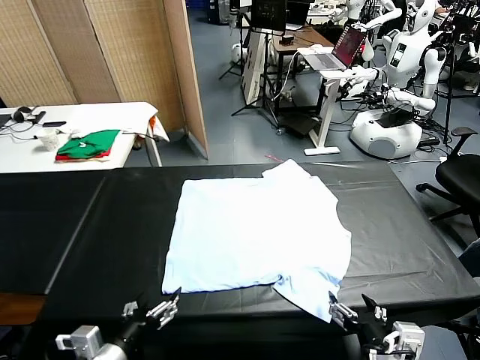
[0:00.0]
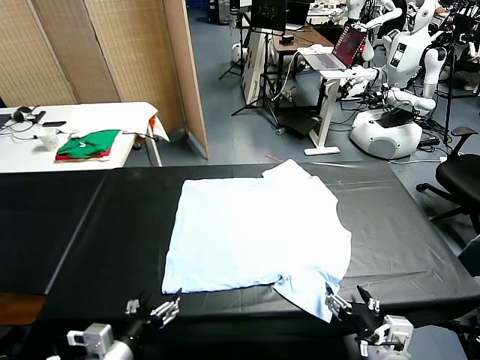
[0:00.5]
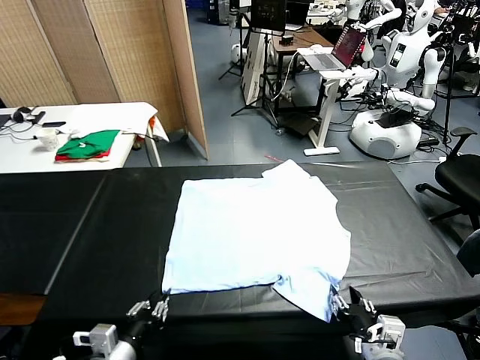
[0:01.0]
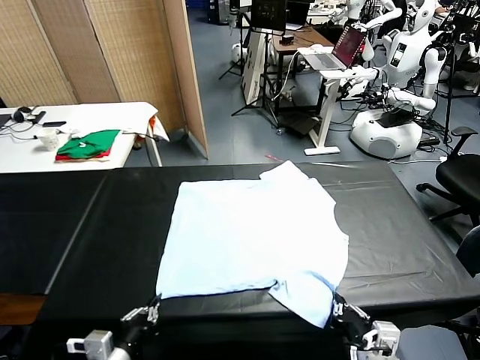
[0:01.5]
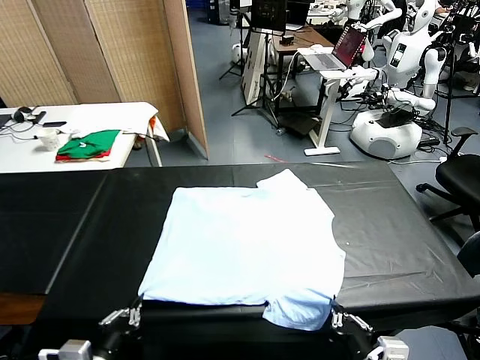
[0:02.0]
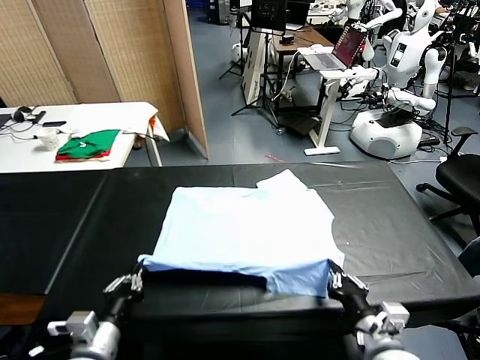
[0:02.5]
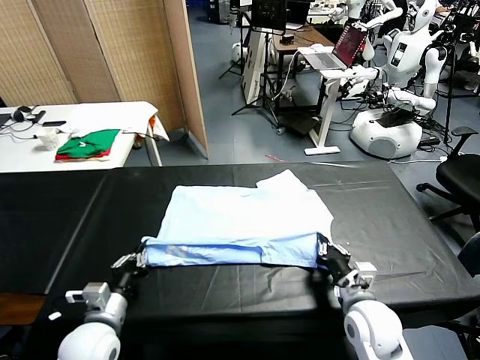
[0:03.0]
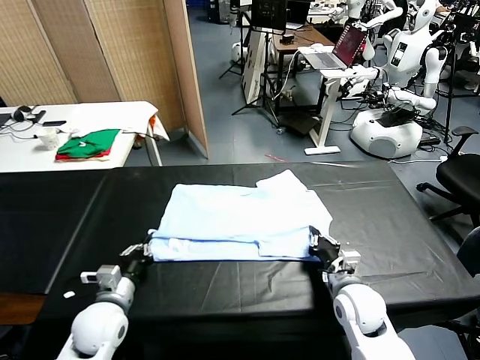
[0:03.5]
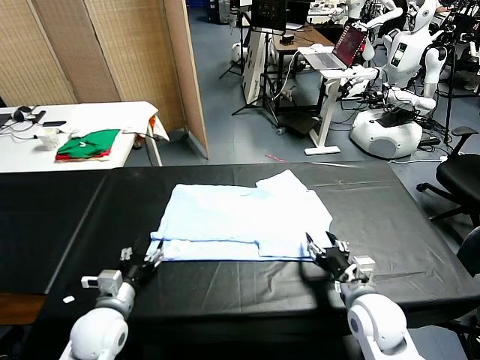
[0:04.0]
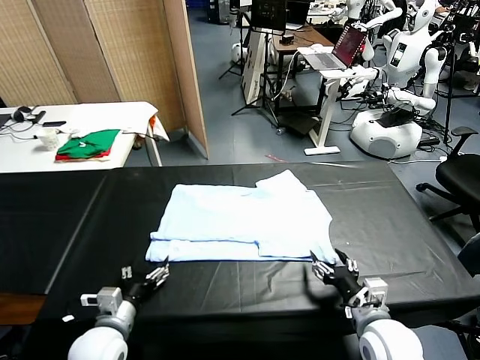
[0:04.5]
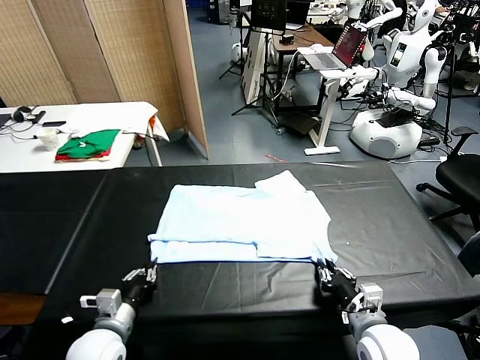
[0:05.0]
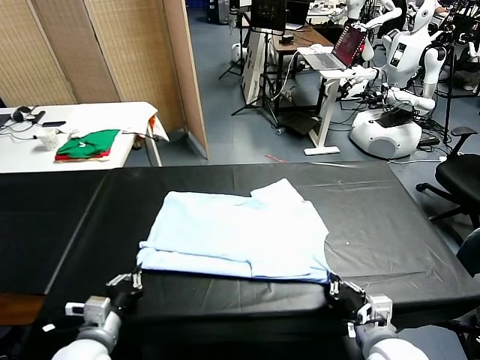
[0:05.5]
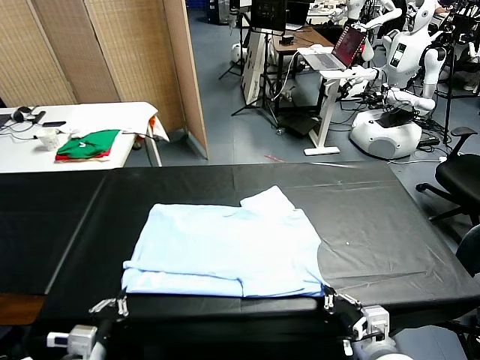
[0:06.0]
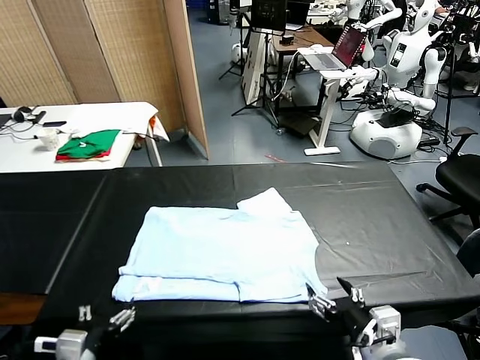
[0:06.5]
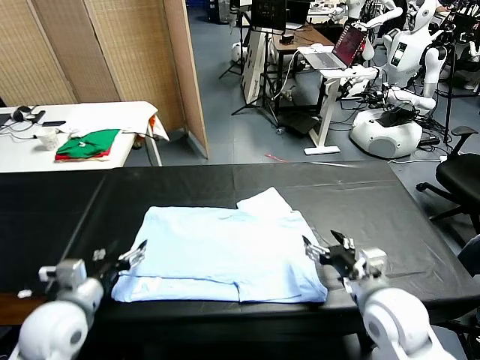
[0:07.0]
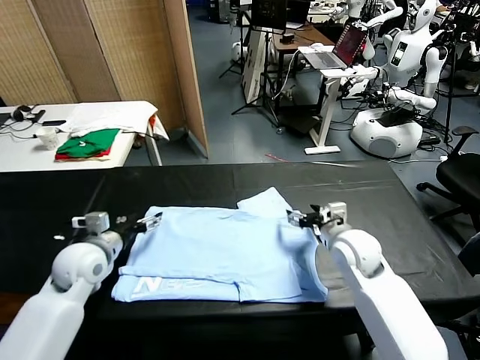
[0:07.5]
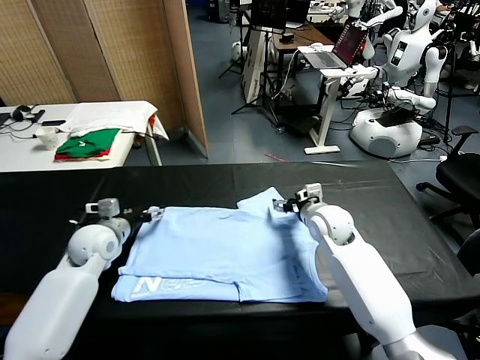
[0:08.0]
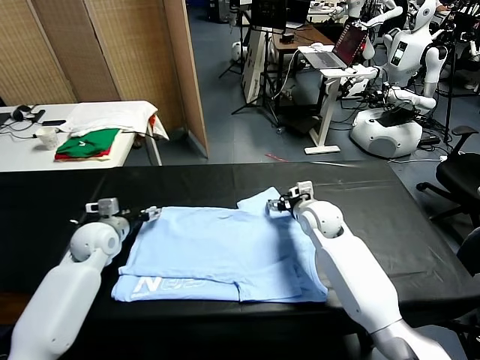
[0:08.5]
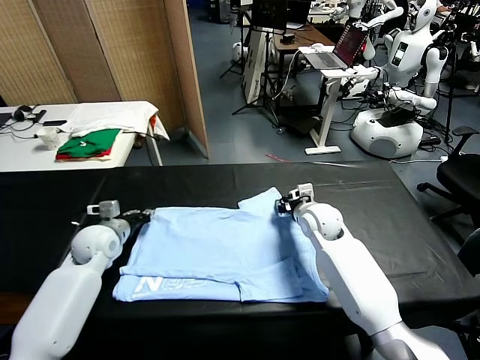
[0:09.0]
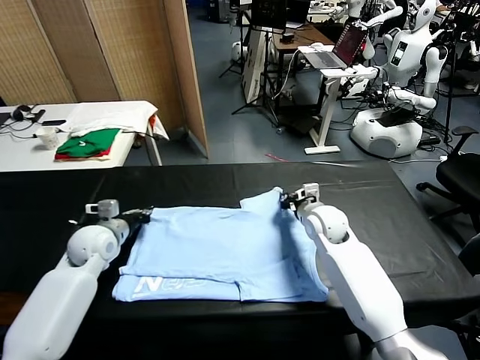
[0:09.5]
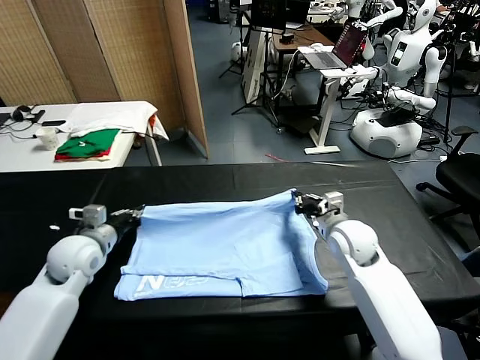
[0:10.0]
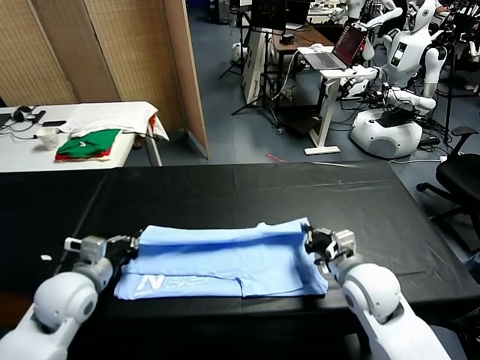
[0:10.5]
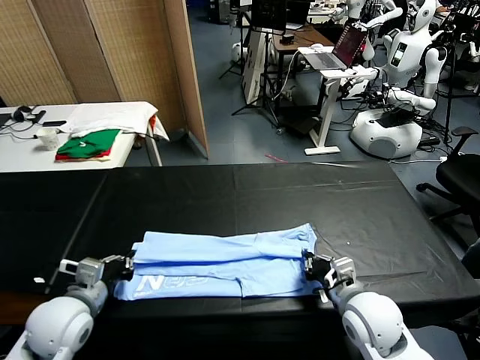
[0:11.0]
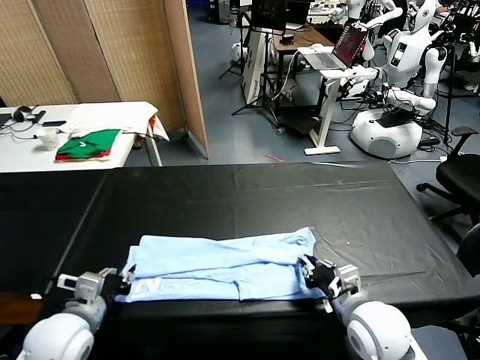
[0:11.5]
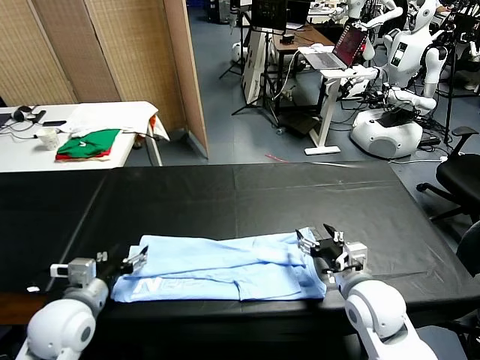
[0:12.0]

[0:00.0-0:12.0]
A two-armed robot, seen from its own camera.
Task of the whole recording: fold and organize the clothes.
Step, 0:00.0 to 0:01.0: use both grippers simultaneously to clamp the lower edge of the clothing fabric.
Step, 0:01.5 to 0:04.0: use both grippers to drag the lower edge of the fabric forward and fold it over the upper edge.
Step, 0:04.5 to 0:06.0: Drag the clothes downward with both gripper.
Step, 0:06.5 to 0:09.0: use both grippers simultaneously to clamp the upper edge of the clothing fabric.
Step, 0:09.5 to 0:11.5: use both grippers to drag the upper edge of the fabric backward and fold it over the lower edge.
0:02.0 to 0:04.0: The left gripper is displaced forward and downward by some 15 cm, and opens up. The right gripper shifts roughly 10 cm forward, and opens.
0:04.0 to 0:06.0: Both grippers travel together backward, roughly 10 cm. The left gripper closes up. Meanwhile the right gripper closes up.
0:06.0 to 0:08.0: Both grippers move forward, approximately 30 cm. The right gripper opens up; the left gripper opens.
0:08.0 to 0:10.0: The right gripper goes about 10 cm backward and to the right, and closes its fingers. The left gripper closes.
0:10.0 to 0:12.0: Both grippers travel together backward, some 10 cm. The left gripper opens its fingers; the right gripper opens its fingers.

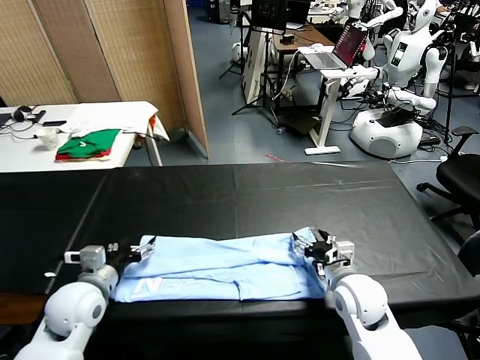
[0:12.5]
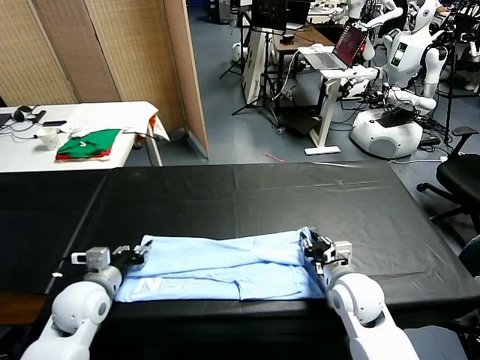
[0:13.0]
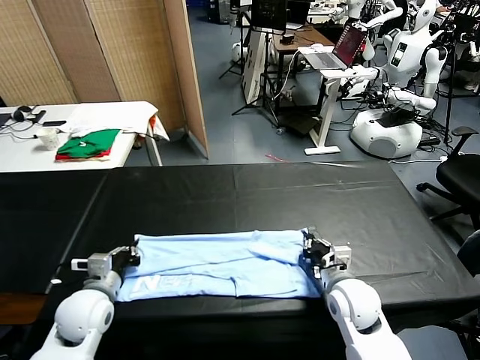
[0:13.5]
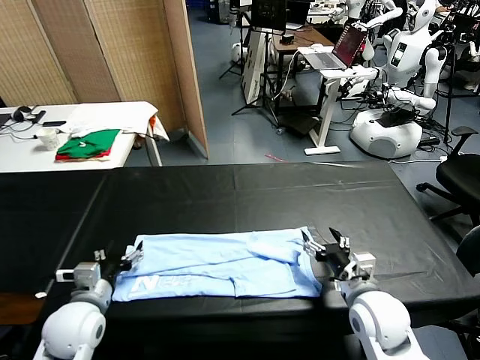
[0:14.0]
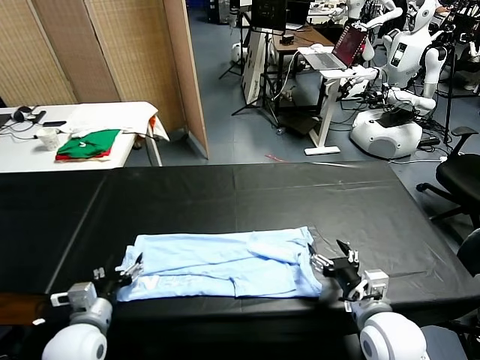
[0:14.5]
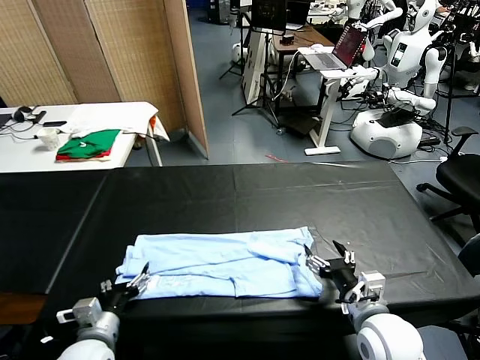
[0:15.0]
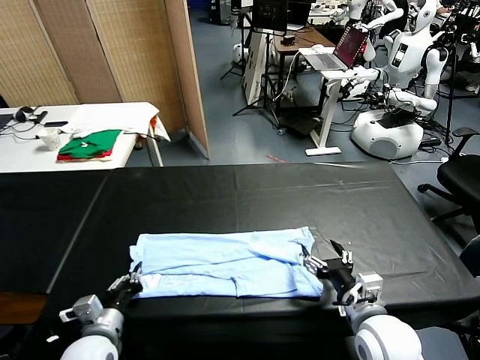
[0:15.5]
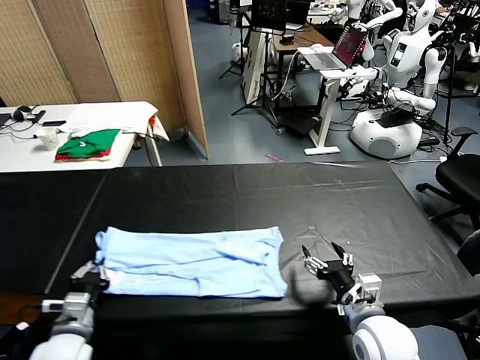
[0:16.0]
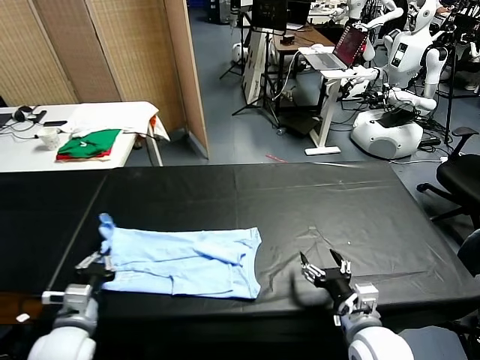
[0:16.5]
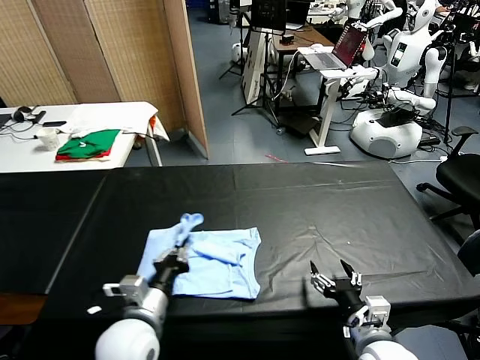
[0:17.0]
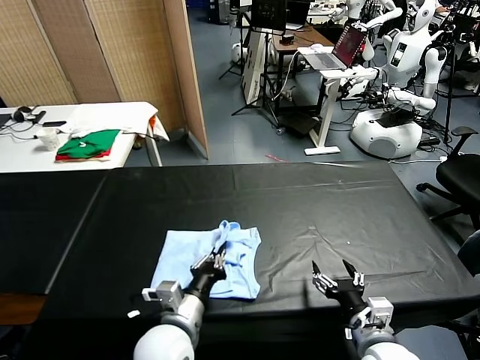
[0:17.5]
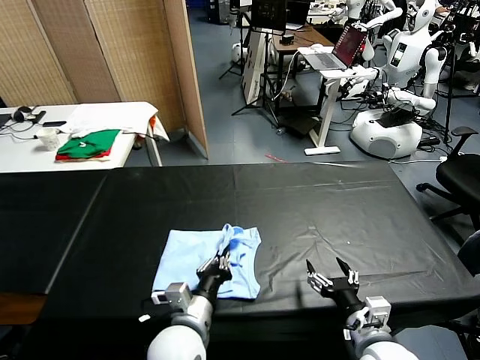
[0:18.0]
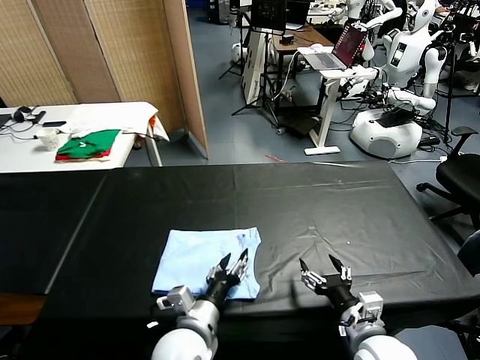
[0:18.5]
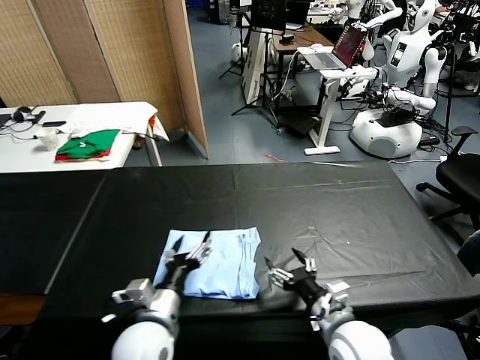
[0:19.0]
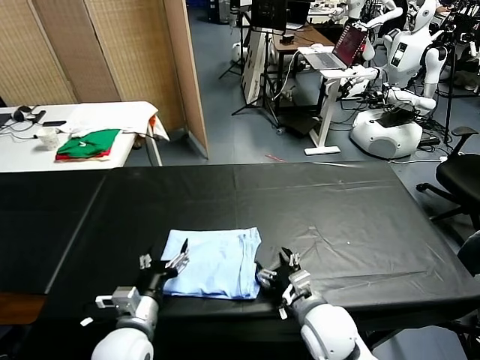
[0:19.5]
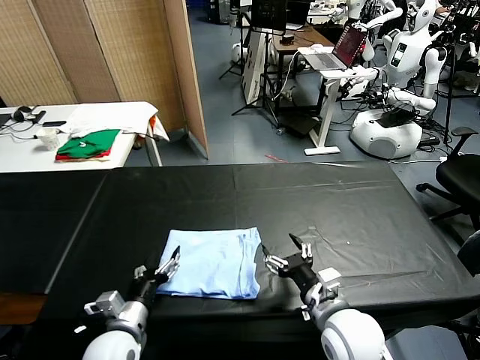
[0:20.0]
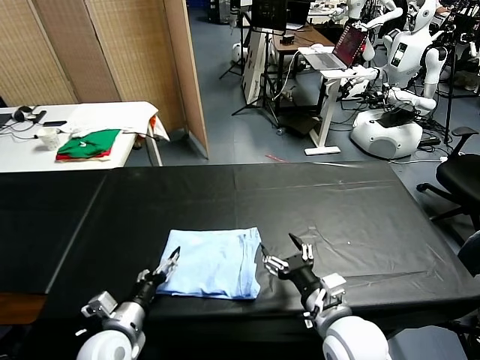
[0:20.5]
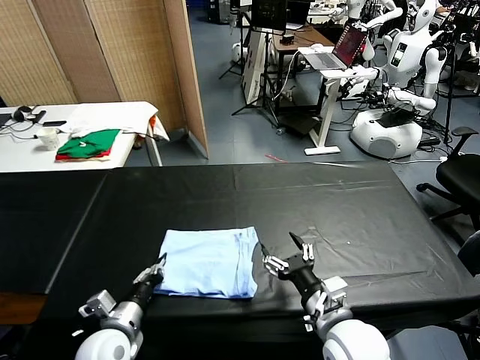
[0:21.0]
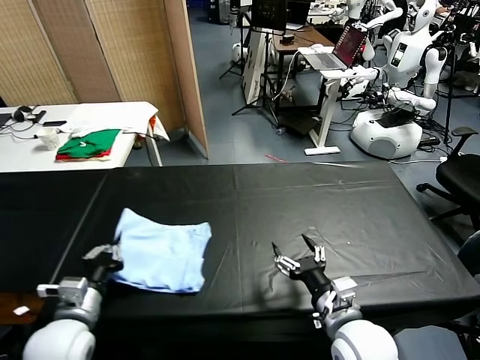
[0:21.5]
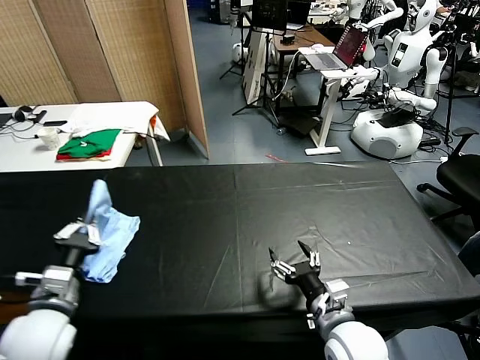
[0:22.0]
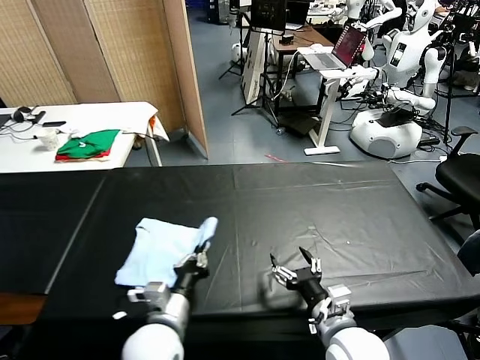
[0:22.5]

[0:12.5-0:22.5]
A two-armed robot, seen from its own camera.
Task of the whole recording: fold and organize the clothes.
Step, 0:12.5 to 0:15.5: use the left gripper to clamp the left edge of the fabric.
Step, 0:16.0 to 0:18.5: use the left gripper to drag the left edge of the fabric to the left and folds it over the right edge.
0:12.5 to 0:14.5: The grippers both shift backward by roughly 10 cm. The right gripper closes, then reopens, while the left gripper closes and opens again.
0:14.5 to 0:16.5: The left gripper closes up.
0:16.5 to 0:18.5: The left gripper shifts about 20 cm to the right, and opens.
0:18.5 to 0:20.5: The right gripper goes approximately 5 cm to the left; the left gripper shifts some 15 cm to the left.
0:20.5 to 0:22.5: The left gripper shifts approximately 10 cm to the right and upward, and closes its fingers.

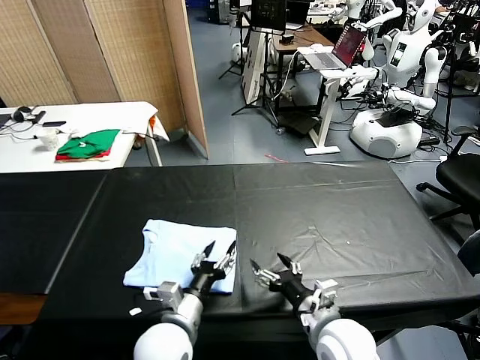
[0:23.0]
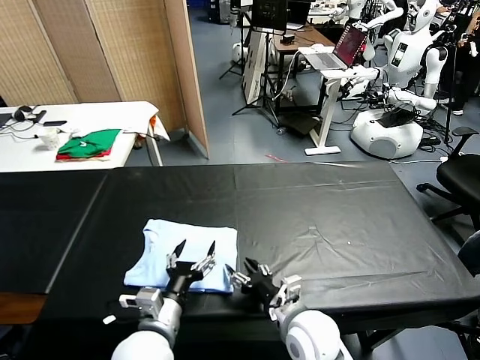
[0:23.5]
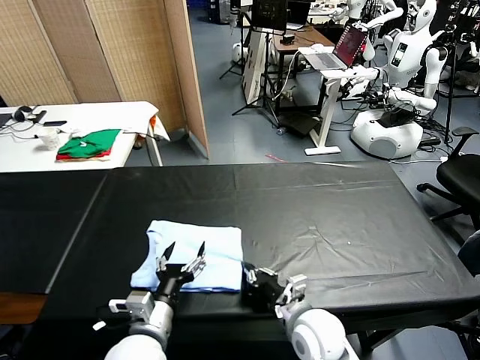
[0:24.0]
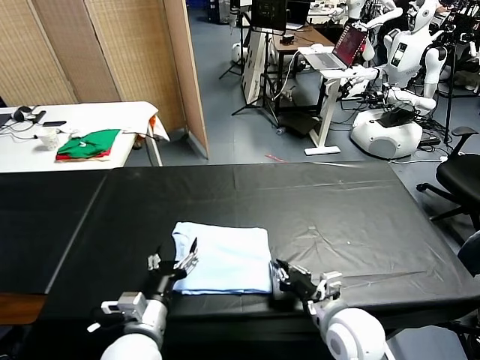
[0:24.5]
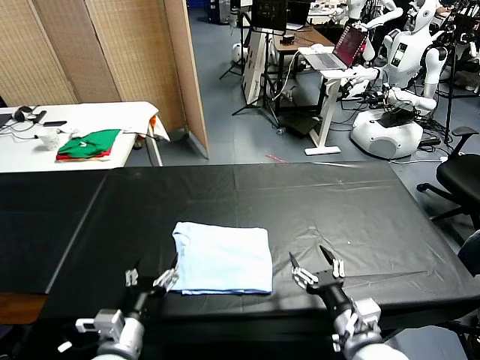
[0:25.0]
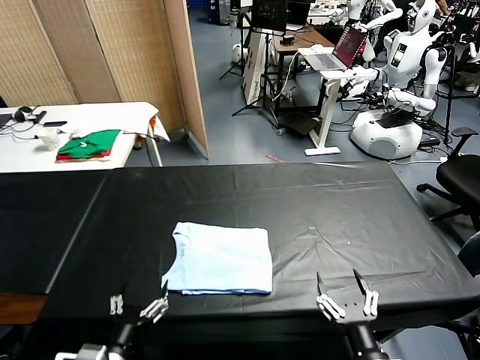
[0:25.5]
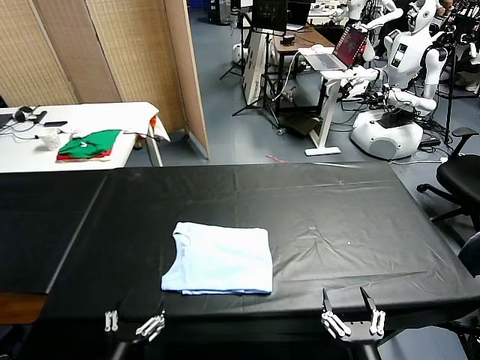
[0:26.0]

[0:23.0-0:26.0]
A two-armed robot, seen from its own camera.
Task of the whole recording: fold and organize the clothes.
Step, 0:23.0 to 0:24.5: Drag the clothes to the center of the table.
0:23.0 to 0:24.5: The right gripper closes up. Meanwhile the left gripper travels to the left by some 5 cm.
0:24.5 to 0:26.0: The right gripper heads backward, covering approximately 15 cm, and opens its fingers. Meanwhile the left gripper travels backward and to the left by some 15 cm.
